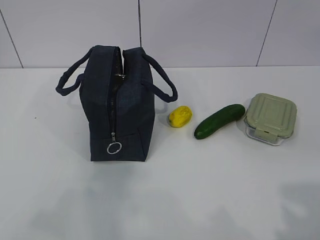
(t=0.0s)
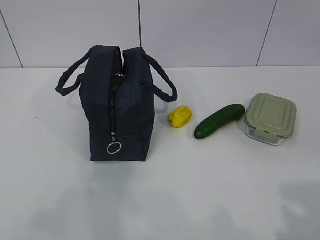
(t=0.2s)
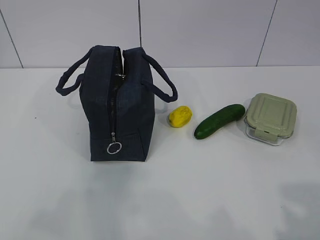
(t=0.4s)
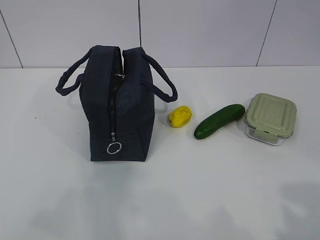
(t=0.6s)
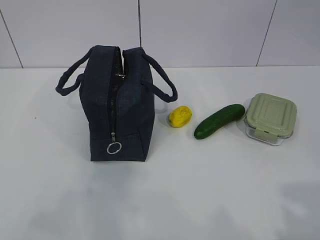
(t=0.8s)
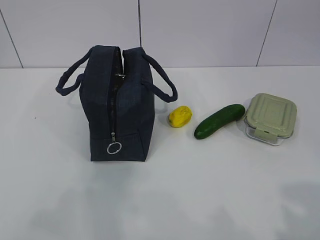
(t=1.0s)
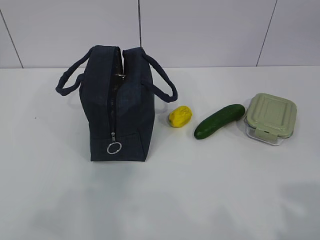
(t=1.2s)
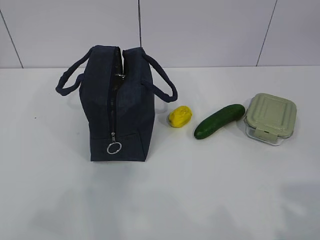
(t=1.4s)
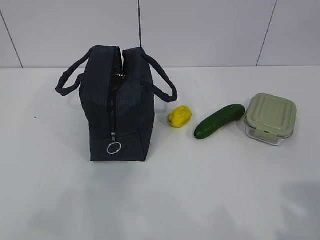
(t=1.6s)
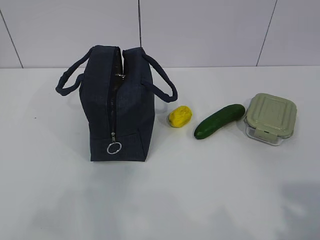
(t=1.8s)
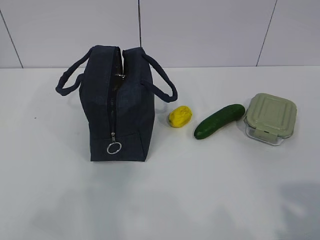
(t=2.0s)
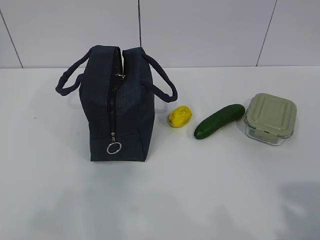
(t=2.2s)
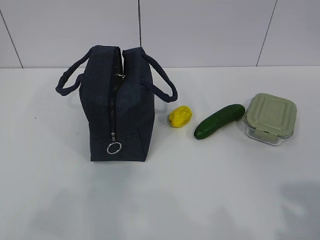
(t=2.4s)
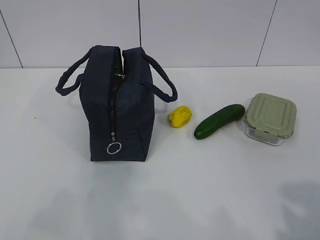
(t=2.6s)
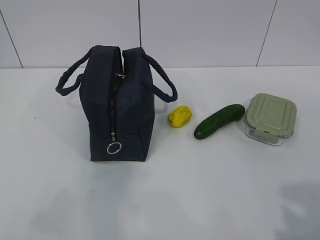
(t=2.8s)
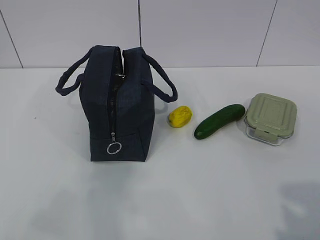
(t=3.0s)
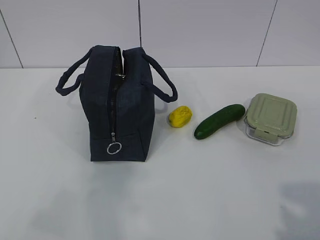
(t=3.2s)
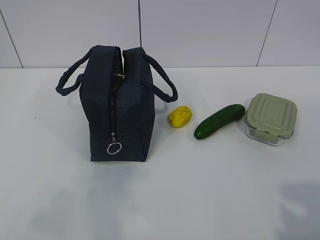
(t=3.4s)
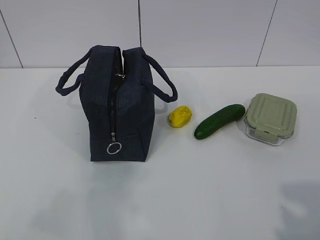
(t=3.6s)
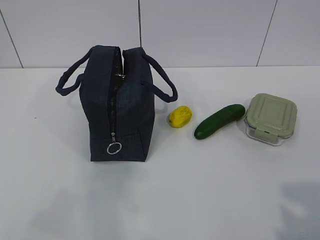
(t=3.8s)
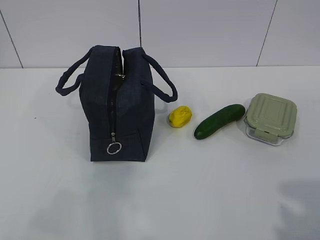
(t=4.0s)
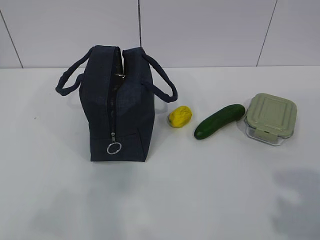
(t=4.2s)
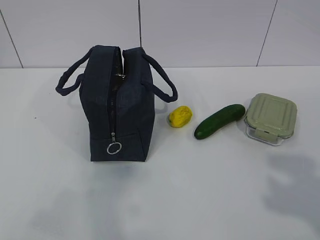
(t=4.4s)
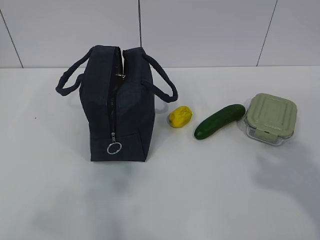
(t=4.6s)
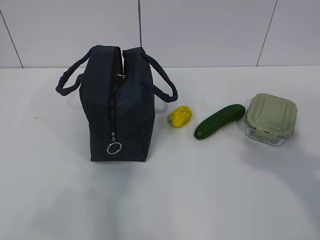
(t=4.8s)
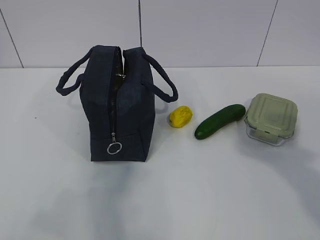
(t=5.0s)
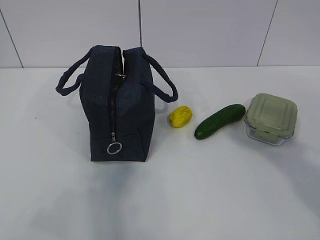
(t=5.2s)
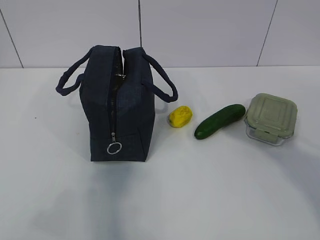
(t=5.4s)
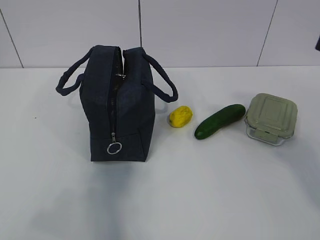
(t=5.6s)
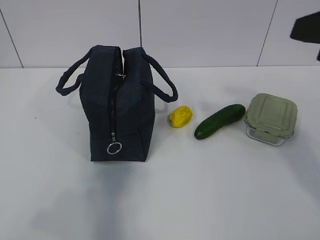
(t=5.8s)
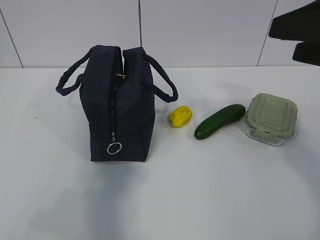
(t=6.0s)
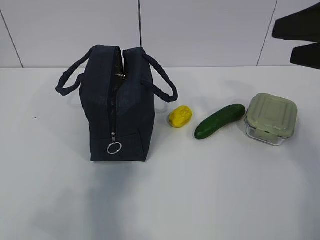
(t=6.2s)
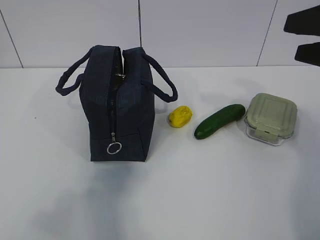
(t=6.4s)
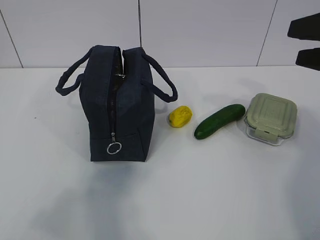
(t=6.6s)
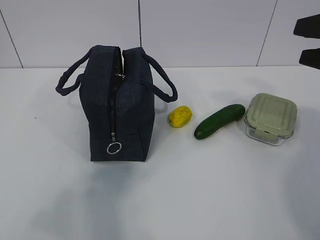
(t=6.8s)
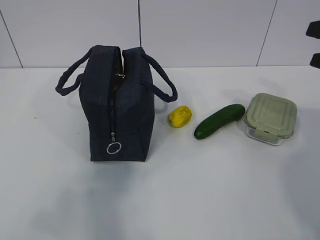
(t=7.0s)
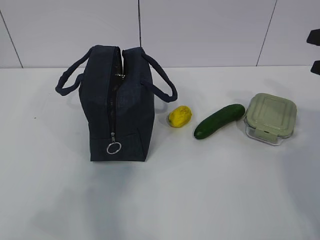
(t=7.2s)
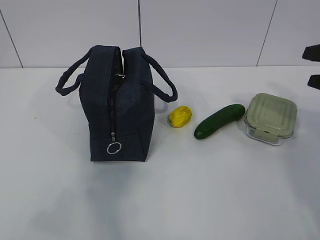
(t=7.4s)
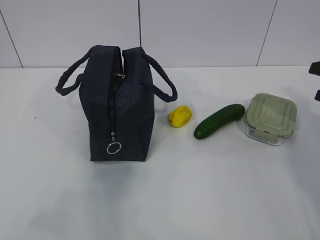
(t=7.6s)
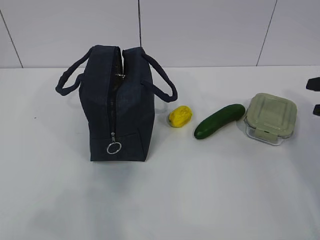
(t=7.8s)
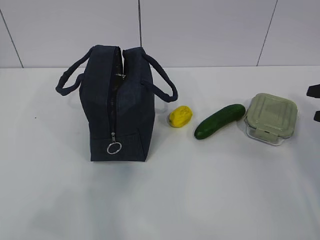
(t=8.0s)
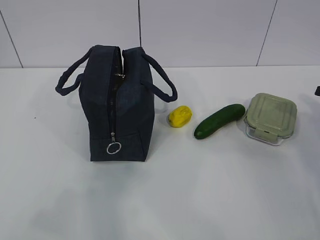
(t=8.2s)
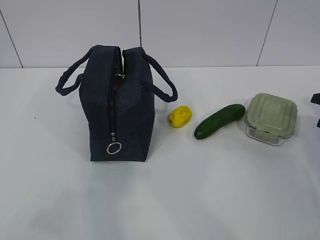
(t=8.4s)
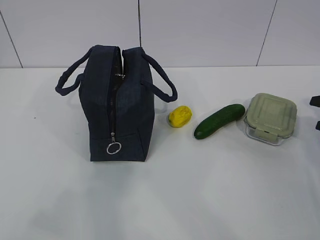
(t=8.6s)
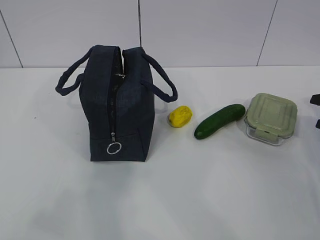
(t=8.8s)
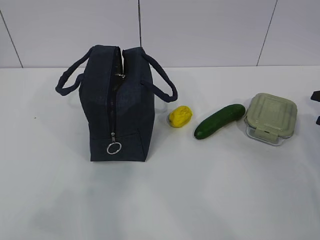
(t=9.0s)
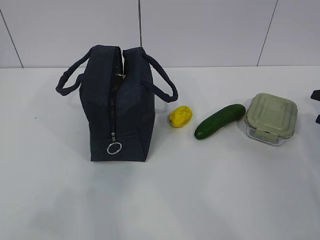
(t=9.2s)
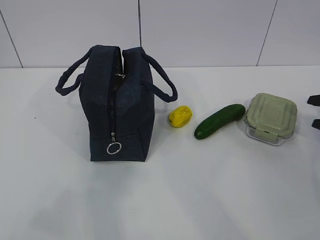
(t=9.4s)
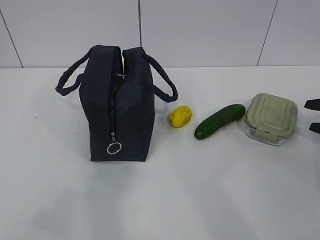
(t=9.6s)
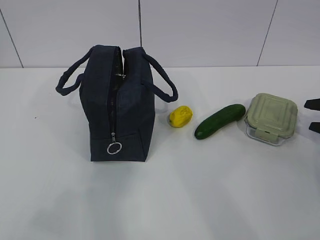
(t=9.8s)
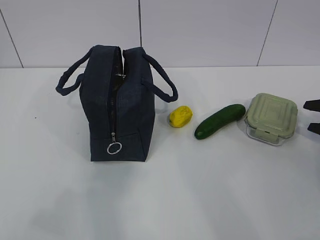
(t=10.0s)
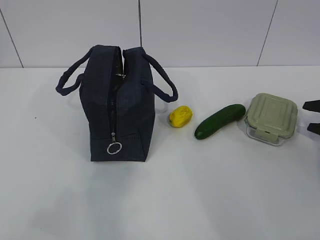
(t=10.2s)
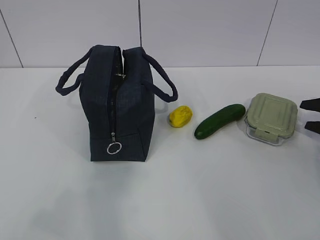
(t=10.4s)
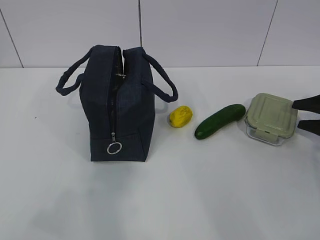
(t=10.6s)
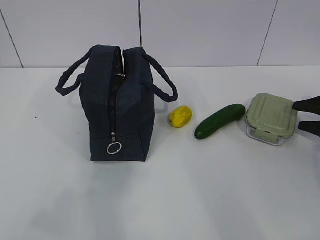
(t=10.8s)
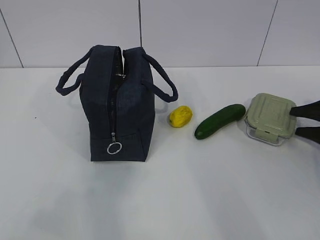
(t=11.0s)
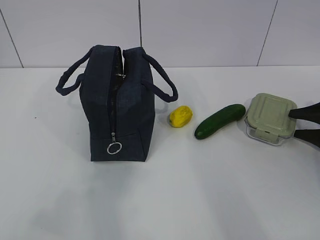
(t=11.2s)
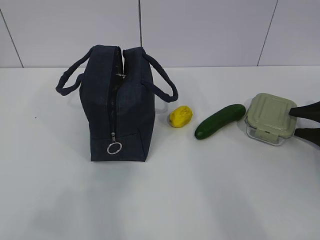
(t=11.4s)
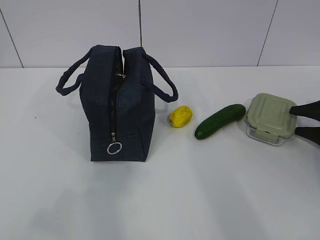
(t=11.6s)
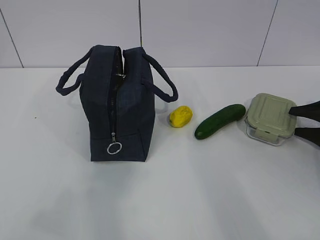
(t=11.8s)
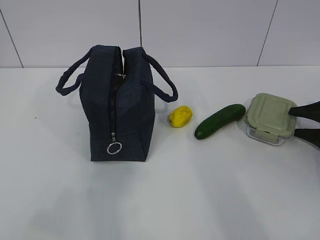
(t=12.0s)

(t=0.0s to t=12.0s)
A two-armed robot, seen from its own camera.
t=4.4s - t=6.0s: The right gripper goes about 15 cm forward.
t=6.0s - t=7.6s: The right gripper goes about 20 cm to the right, downward and forward.
t=9.0s - t=10.4s: The right gripper is displaced downward and forward by roughly 10 cm.
t=10.4s - t=12.0s: The grippers make only small movements.

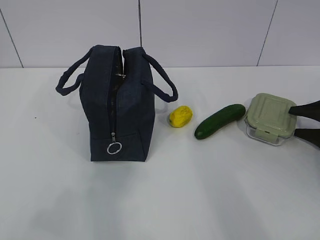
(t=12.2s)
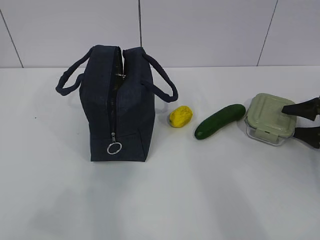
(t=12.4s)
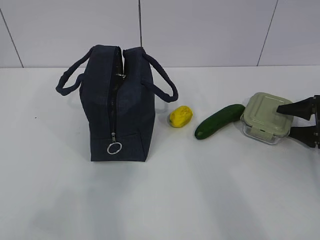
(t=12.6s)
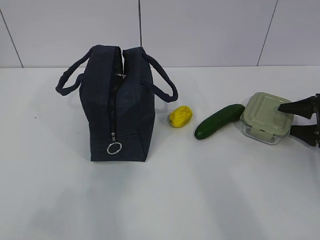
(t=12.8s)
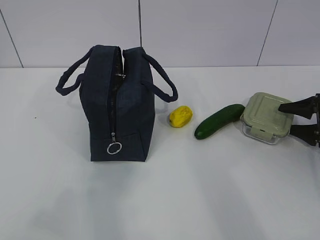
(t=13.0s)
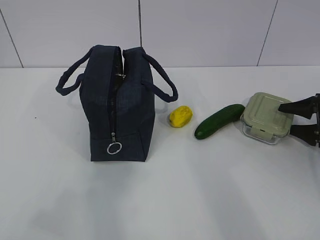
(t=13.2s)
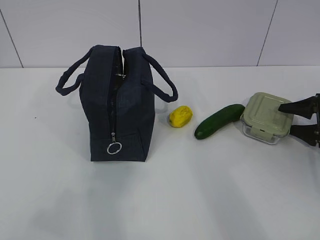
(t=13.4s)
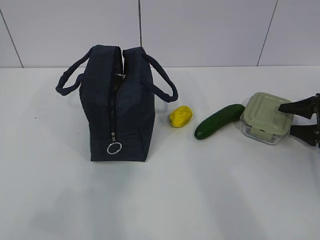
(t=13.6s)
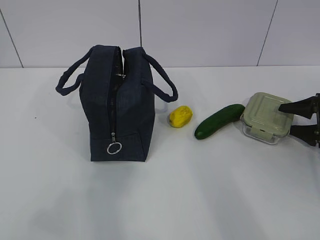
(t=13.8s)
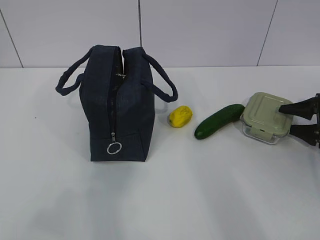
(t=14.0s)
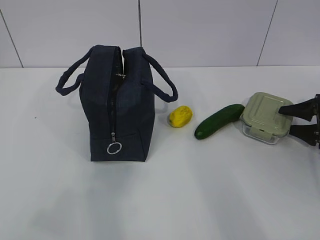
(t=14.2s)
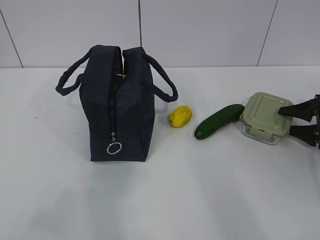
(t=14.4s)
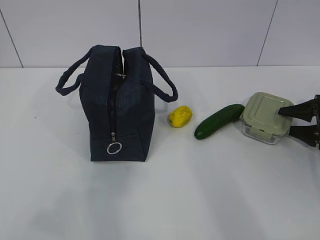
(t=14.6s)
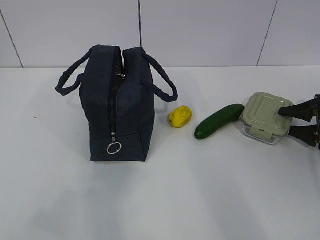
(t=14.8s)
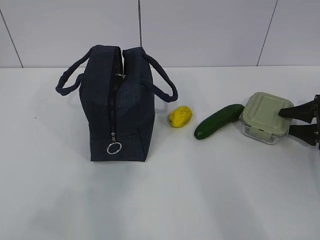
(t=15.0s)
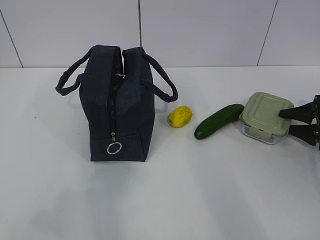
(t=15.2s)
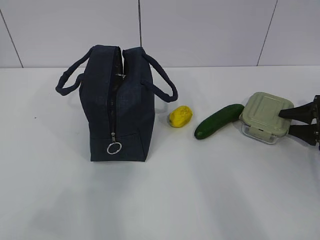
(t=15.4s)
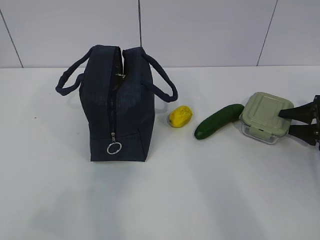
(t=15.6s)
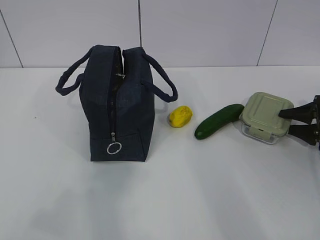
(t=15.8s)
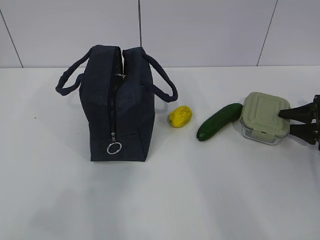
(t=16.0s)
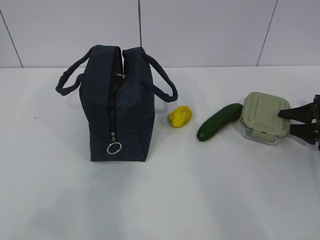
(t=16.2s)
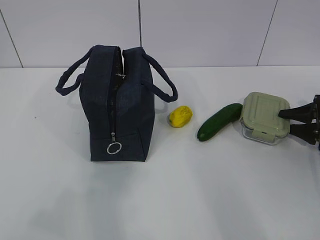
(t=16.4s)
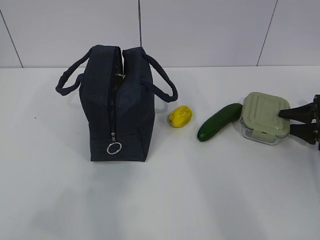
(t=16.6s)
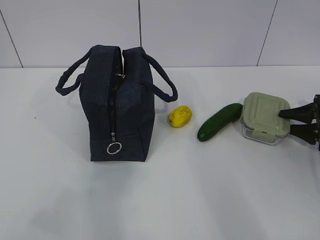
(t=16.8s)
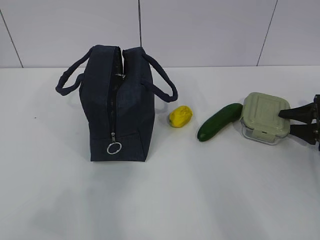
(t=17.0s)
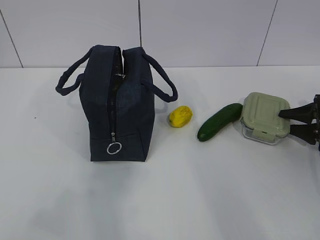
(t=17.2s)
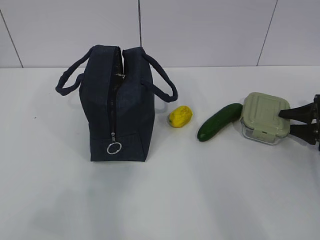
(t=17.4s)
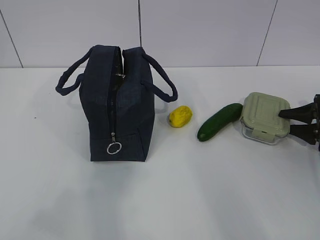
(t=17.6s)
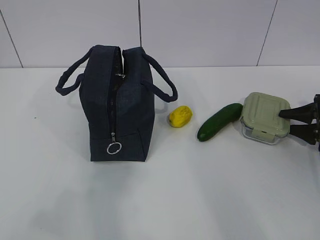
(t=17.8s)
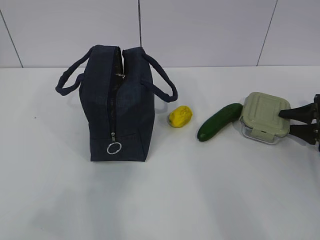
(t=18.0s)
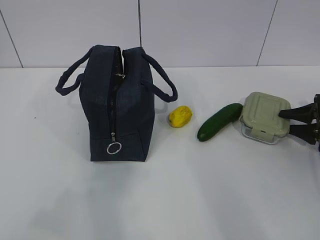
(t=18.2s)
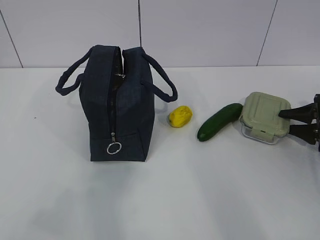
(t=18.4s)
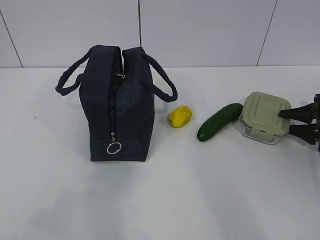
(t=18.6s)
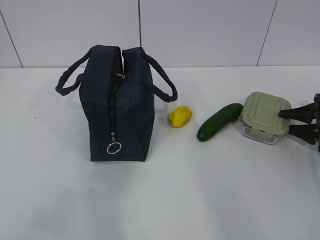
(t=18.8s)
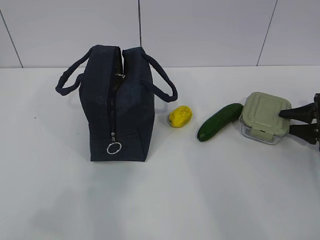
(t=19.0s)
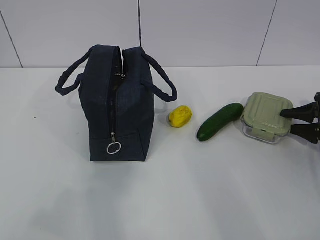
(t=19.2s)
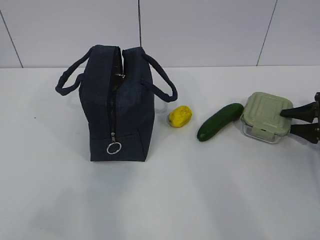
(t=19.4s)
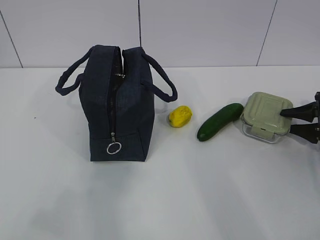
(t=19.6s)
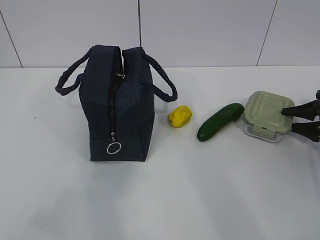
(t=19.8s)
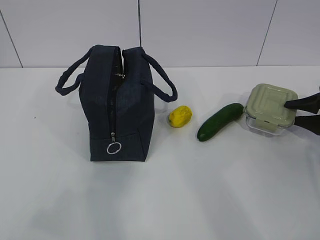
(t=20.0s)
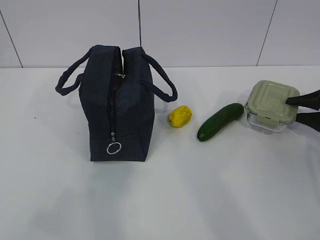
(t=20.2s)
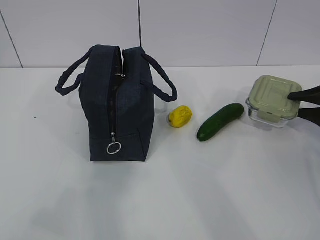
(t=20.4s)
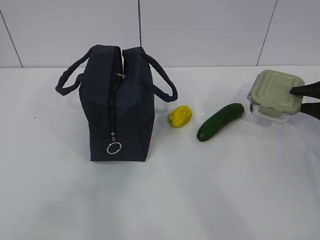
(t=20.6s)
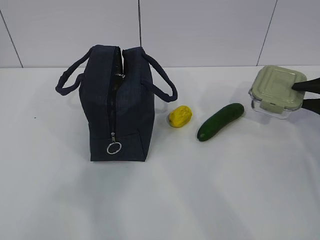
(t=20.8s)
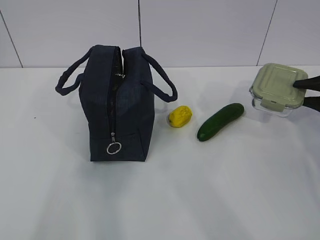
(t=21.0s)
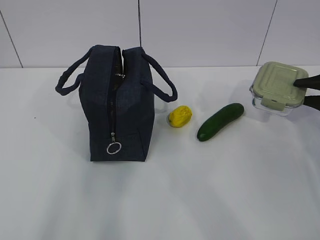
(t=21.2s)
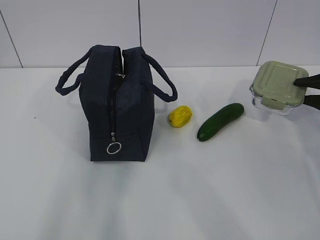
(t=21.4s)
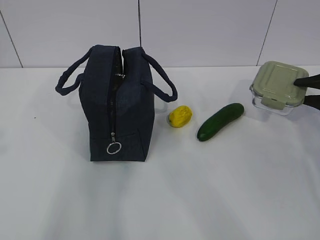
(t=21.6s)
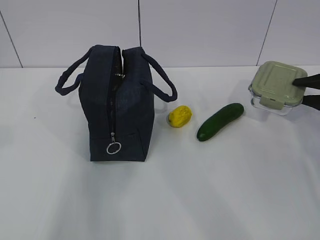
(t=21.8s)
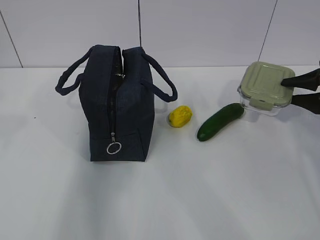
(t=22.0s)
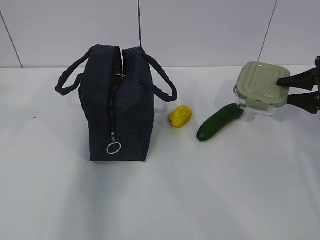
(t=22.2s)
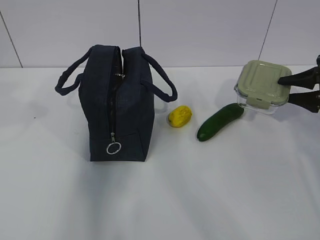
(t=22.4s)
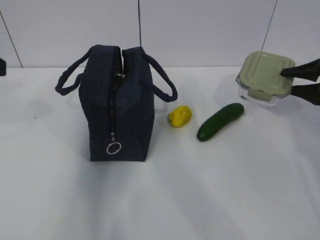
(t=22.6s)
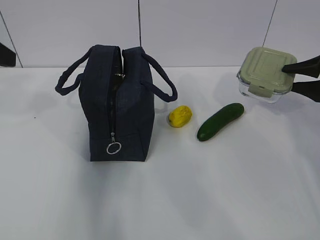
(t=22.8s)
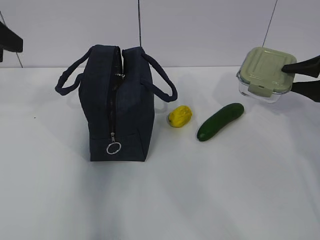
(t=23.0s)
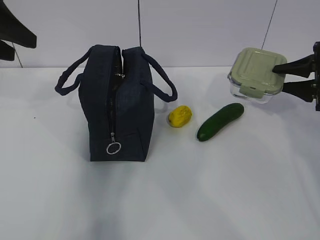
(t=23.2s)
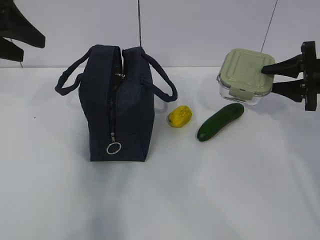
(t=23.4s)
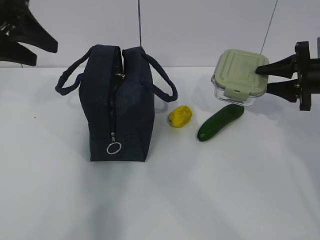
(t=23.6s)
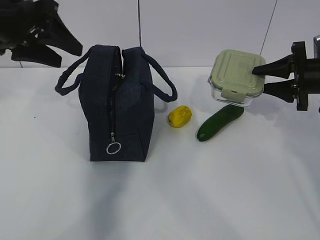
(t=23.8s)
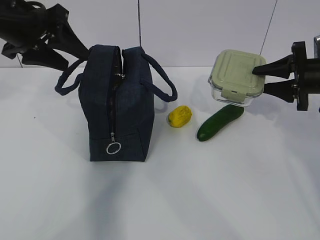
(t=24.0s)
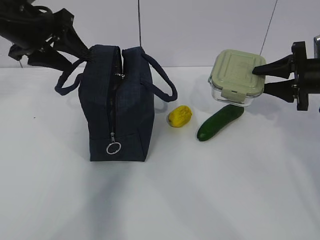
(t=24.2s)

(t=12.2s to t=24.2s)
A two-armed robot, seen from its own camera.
Step, t=12.2s - t=16.2s: Grab the lunch box with your right hand.
Step, t=16.4s - t=22.8s: Grab the lunch bag with your left hand.
t=12.2s - t=13.8s: The grippers move only a little.
t=13.8s - t=18.2s: Both grippers stay about where they are.
t=18.2s - t=19.8s: Both grippers stay about where they are.
t=19.8s - t=21.2s: The right gripper shifts roughly 5 cm upward.
t=21.2s - t=22.6s: The left gripper is displaced forward by roughly 20 cm.
t=22.6s - t=24.2s: The right gripper goes approximately 5 cm to the left; the left gripper goes about 15 cm forward and to the right.
